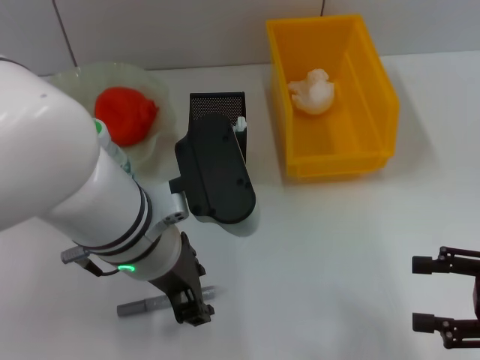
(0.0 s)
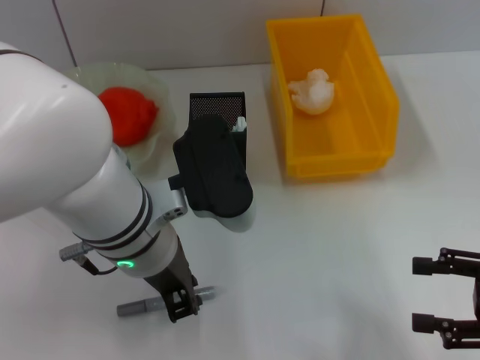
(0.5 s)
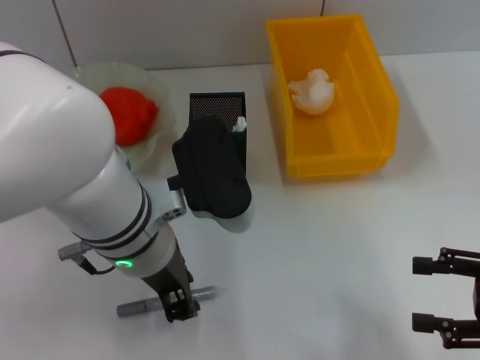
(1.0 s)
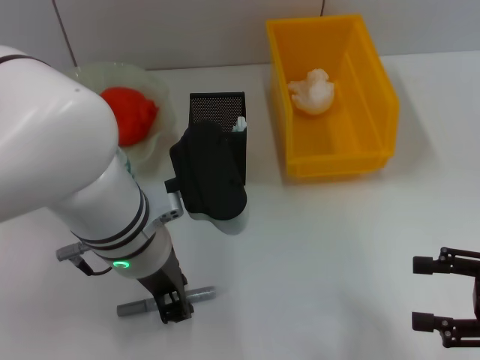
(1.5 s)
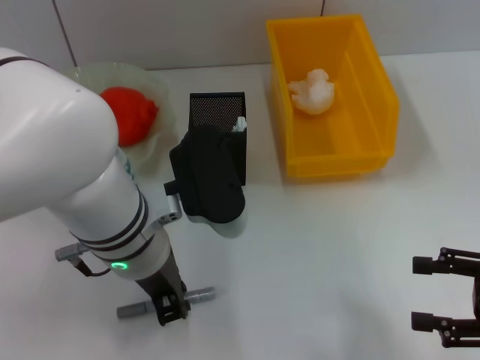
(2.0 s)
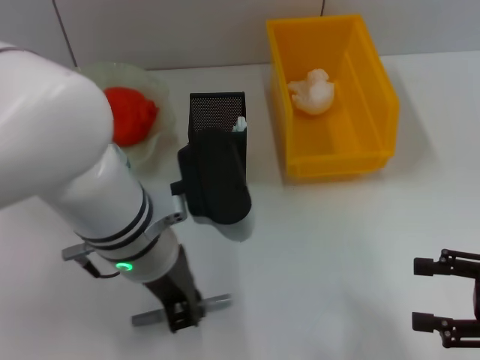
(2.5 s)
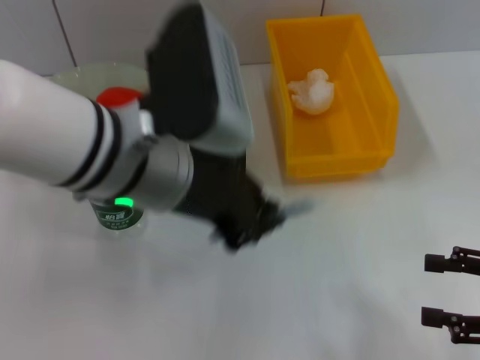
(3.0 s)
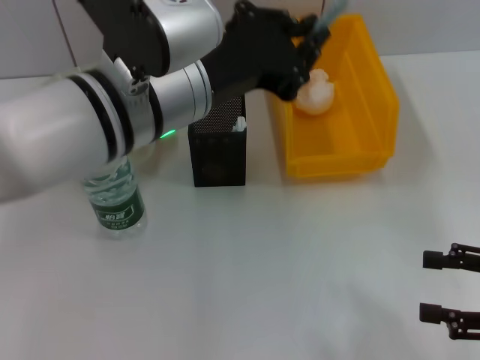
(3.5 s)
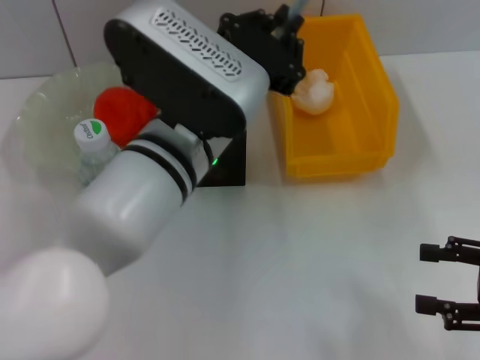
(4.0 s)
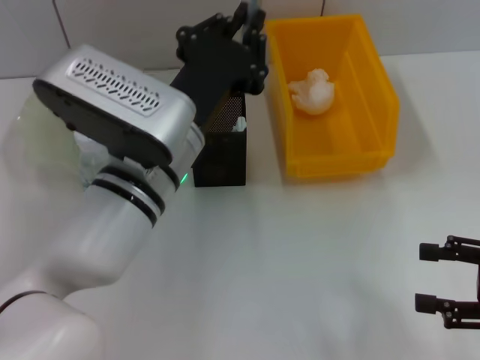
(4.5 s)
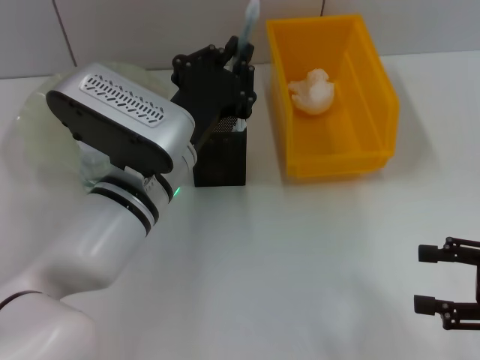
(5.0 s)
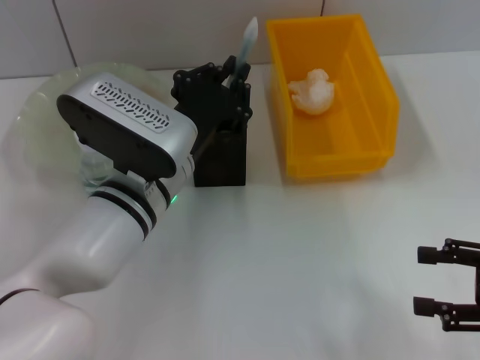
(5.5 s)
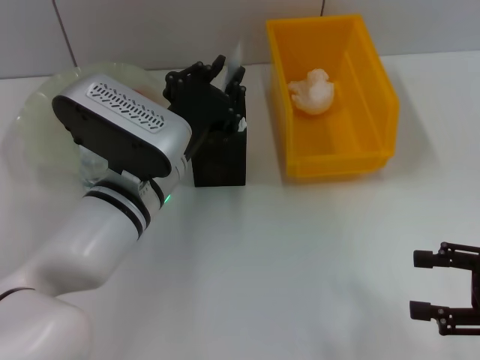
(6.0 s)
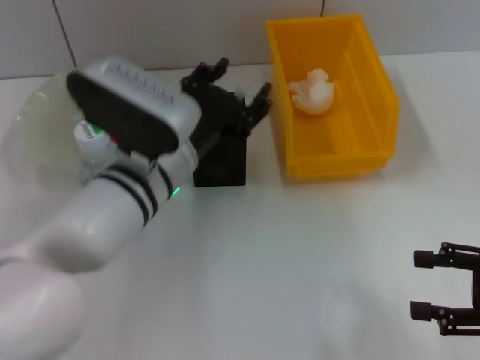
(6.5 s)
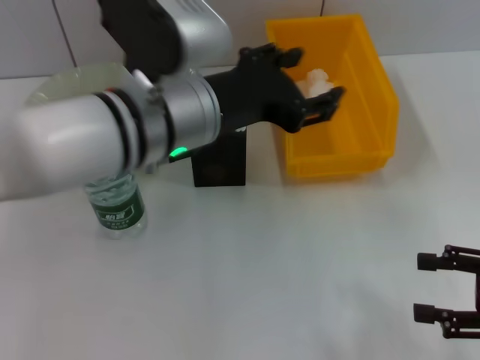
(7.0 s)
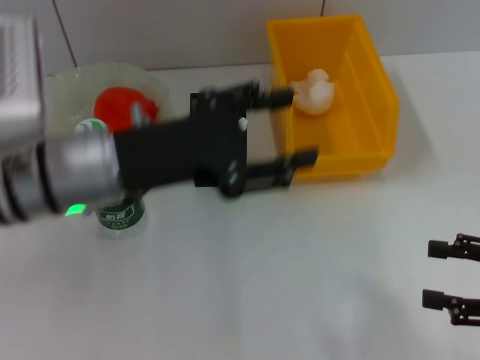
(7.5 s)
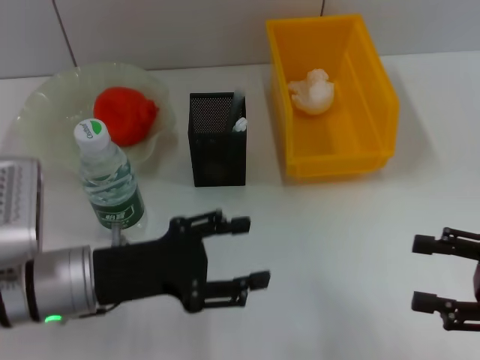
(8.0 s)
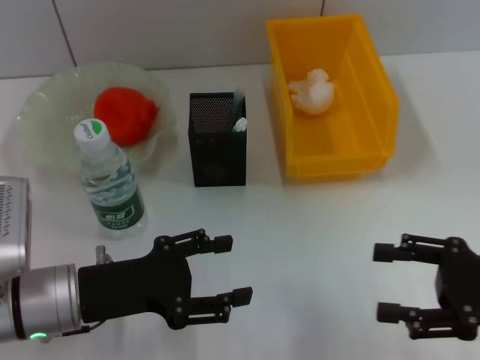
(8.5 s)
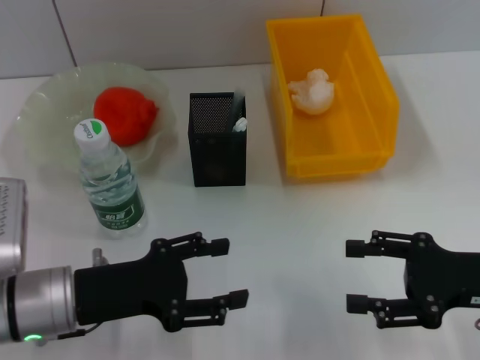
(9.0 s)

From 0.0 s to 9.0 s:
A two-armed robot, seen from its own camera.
Step, from 0.0 s to 2.0 s: Grab the gray glue with the left hand.
Step, from 2.5 s to 6.5 s: Place the gray glue into the pen holder with the left hand.
From 0.0 s to 2.0 s: The left gripper closes.
From 2.0 s to 4.5 s: The left gripper goes upward and returns, about 10 cm each way.
From 4.5 s to 7.0 s: The left gripper moves upward, roughly 5 cm, and opens up.
From 7.0 s to 9.0 s: The right gripper shifts about 5 cm to the left, while the left gripper goes some 20 cm to the left, downward and backward.

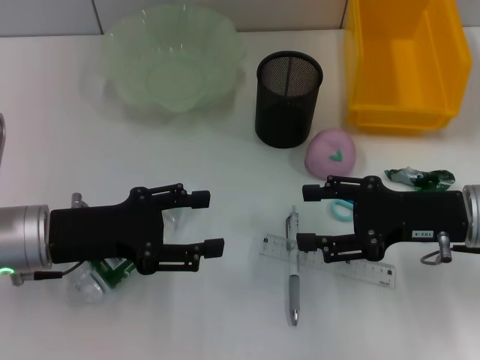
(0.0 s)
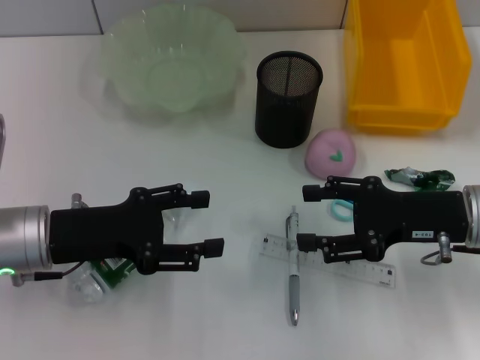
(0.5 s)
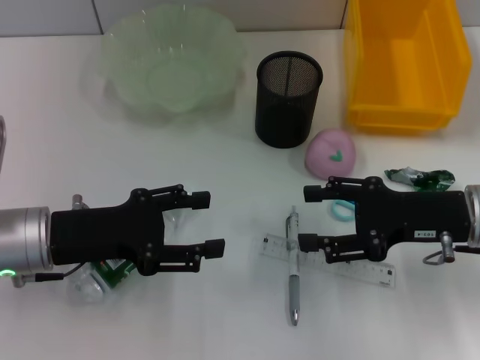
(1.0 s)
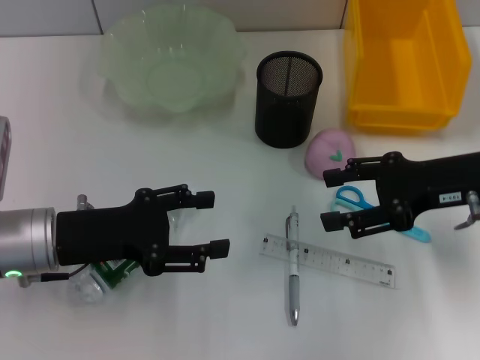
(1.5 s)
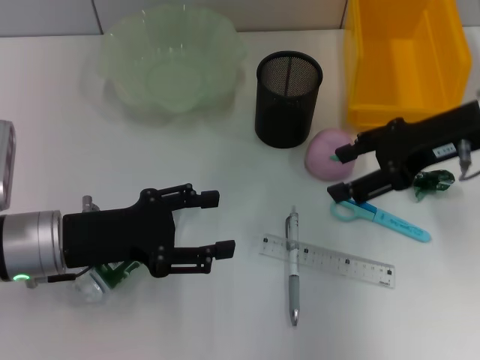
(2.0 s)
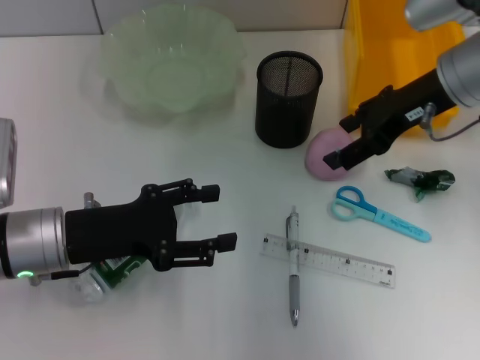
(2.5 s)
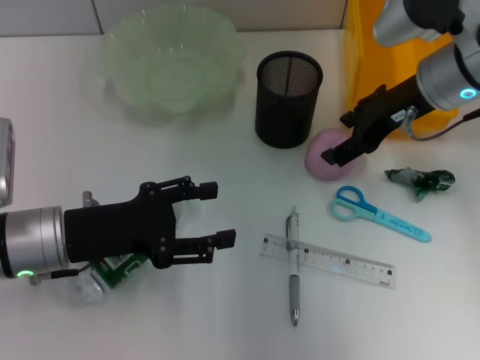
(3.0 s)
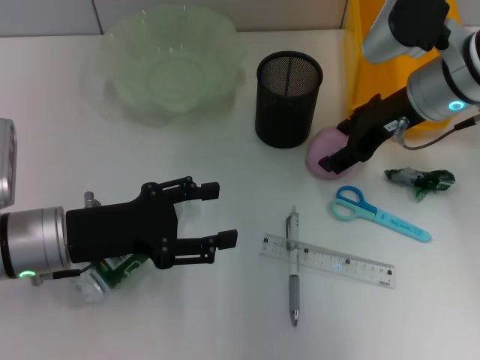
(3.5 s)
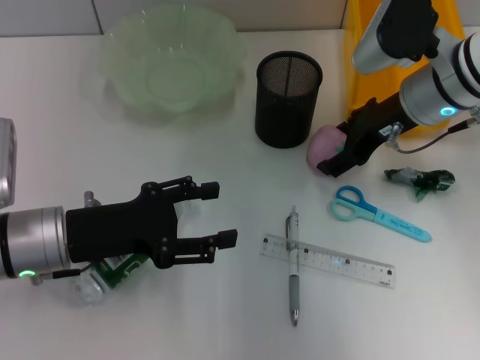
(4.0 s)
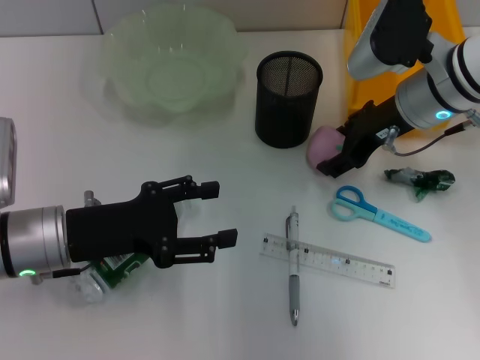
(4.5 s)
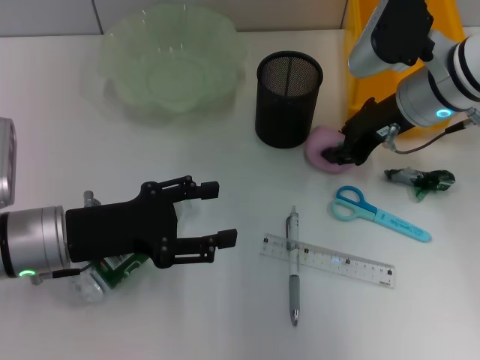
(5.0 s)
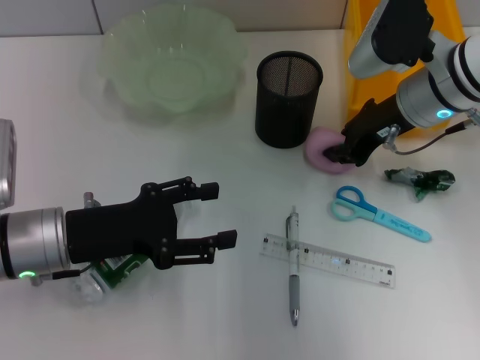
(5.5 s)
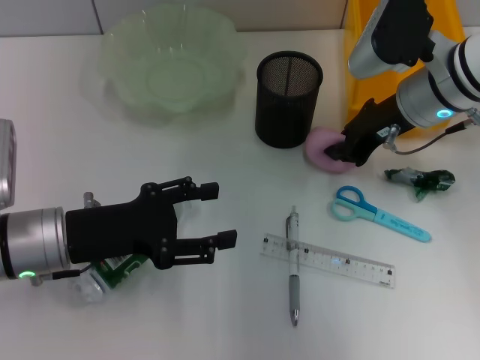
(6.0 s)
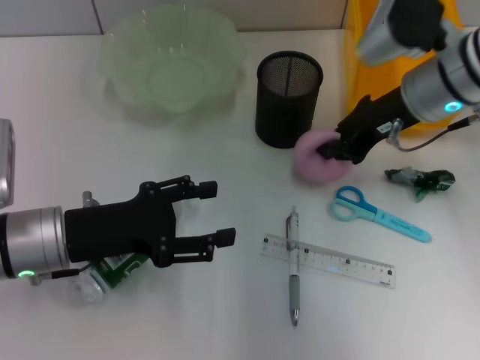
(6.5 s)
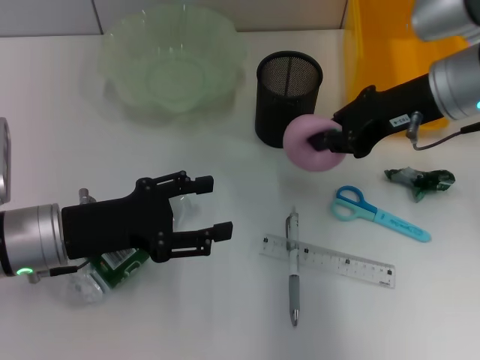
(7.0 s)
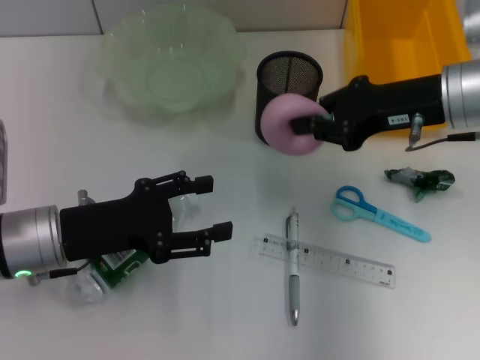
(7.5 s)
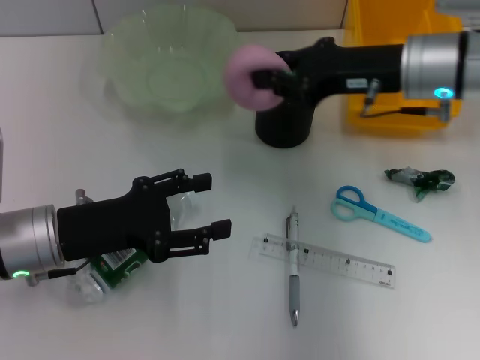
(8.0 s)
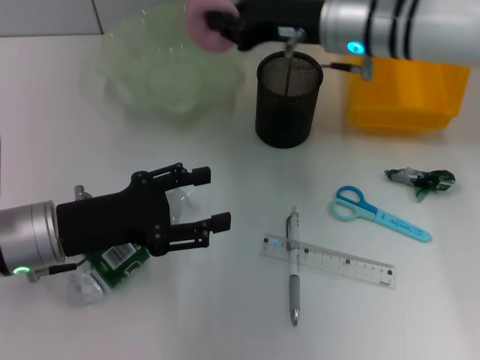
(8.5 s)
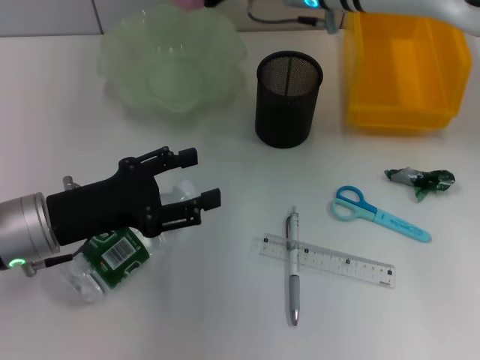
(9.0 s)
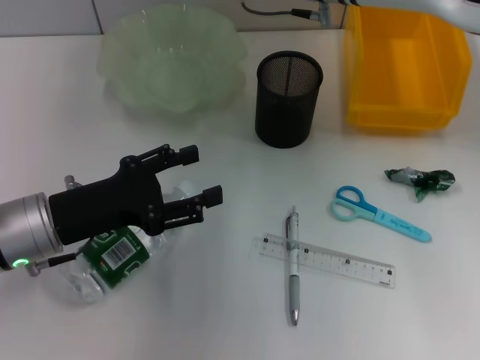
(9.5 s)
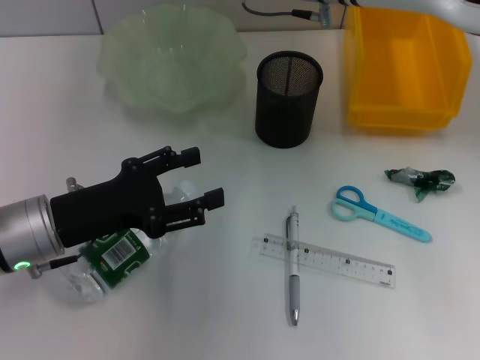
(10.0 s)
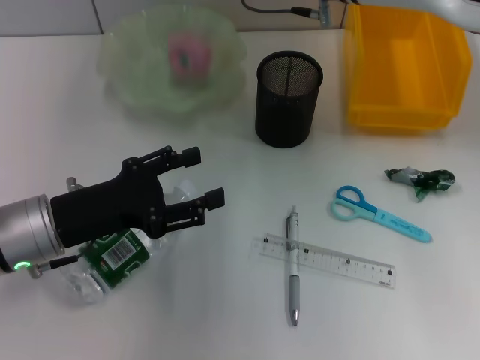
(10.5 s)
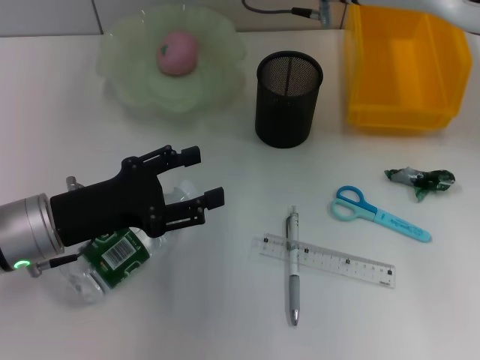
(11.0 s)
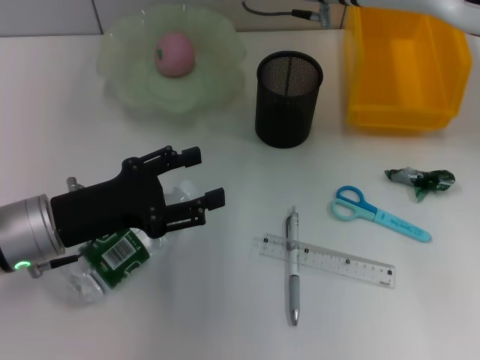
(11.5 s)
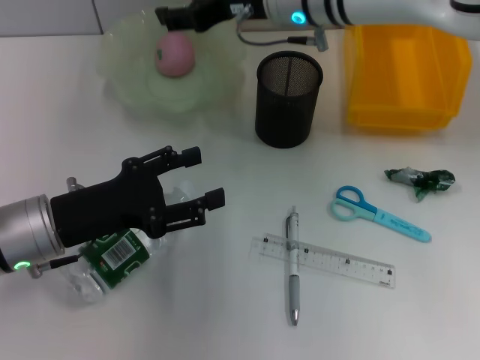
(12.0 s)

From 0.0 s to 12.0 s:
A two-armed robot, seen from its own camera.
Step, from 0.0 s to 5.5 s: Grab the peach with the right hand.
From 0.0 s to 2.0 s: The right gripper moves upward and forward, about 10 cm.
From 2.0 s to 4.0 s: The right gripper shifts approximately 5 cm to the left.
From 4.0 s to 6.0 s: The right gripper closes.
From 8.0 s to 10.0 s: The right gripper goes approximately 15 cm to the left and forward.
From 10.0 s to 12.0 s: The right gripper opens up.

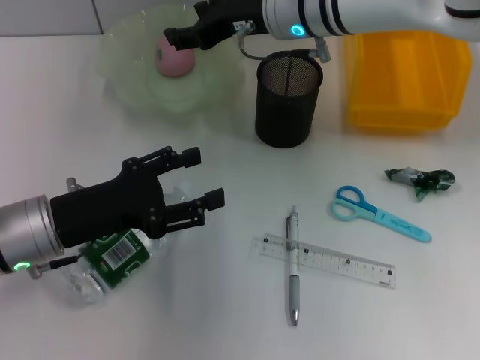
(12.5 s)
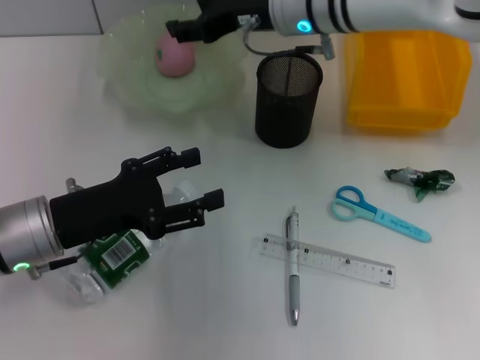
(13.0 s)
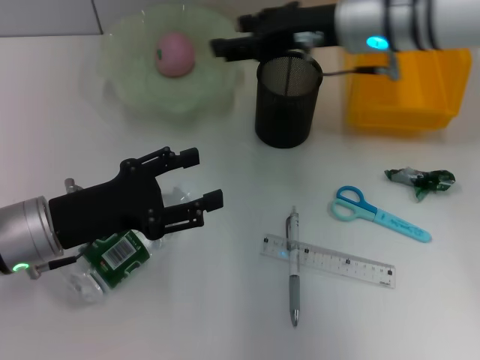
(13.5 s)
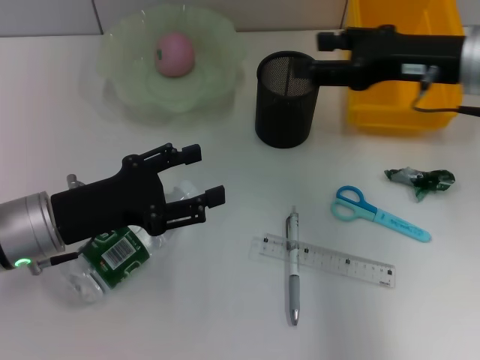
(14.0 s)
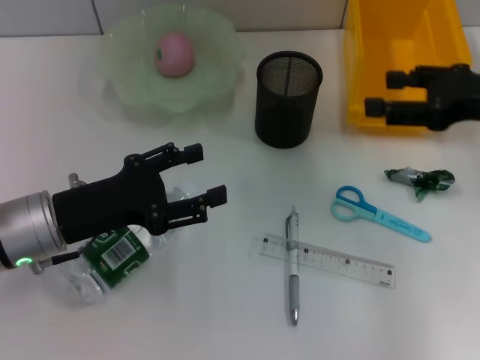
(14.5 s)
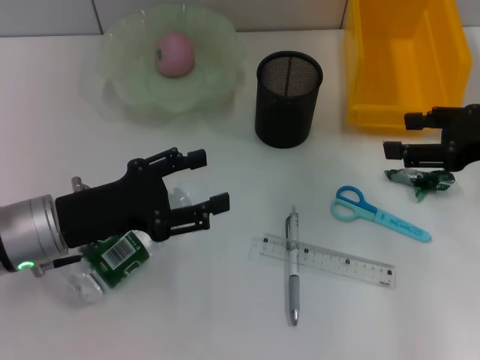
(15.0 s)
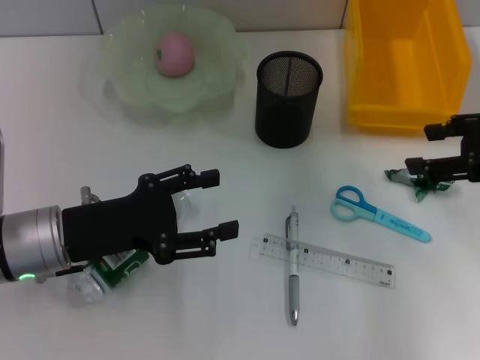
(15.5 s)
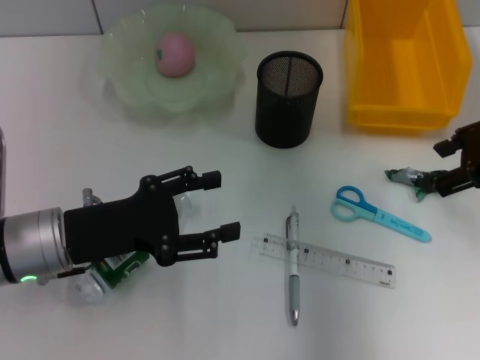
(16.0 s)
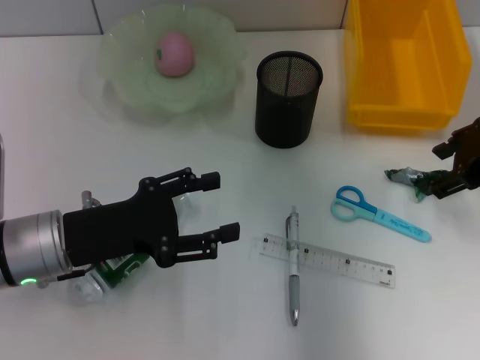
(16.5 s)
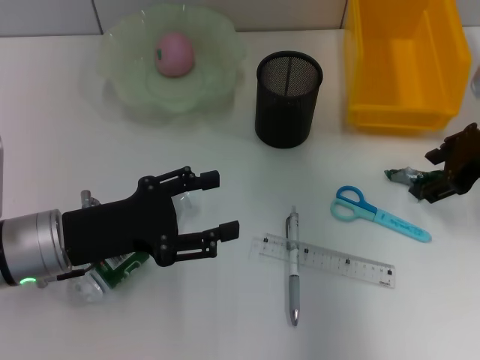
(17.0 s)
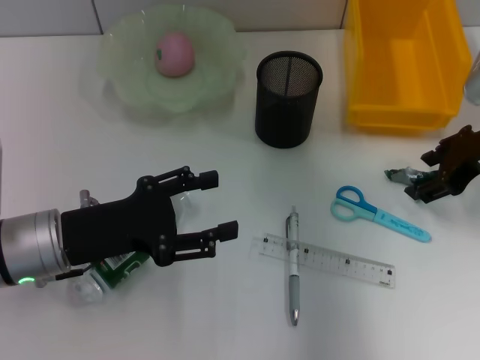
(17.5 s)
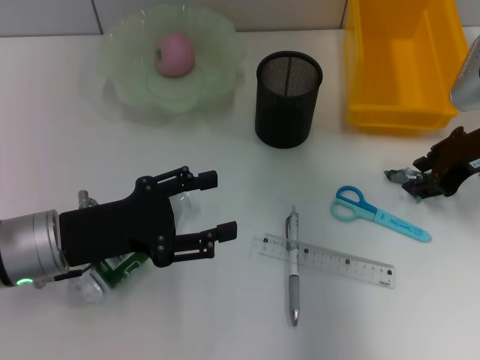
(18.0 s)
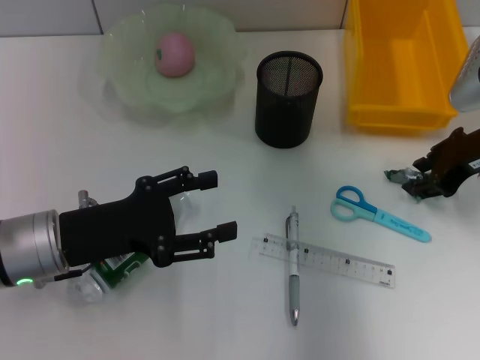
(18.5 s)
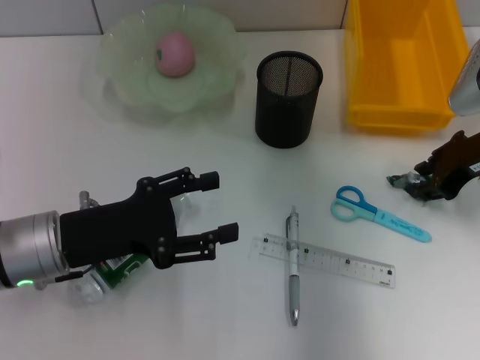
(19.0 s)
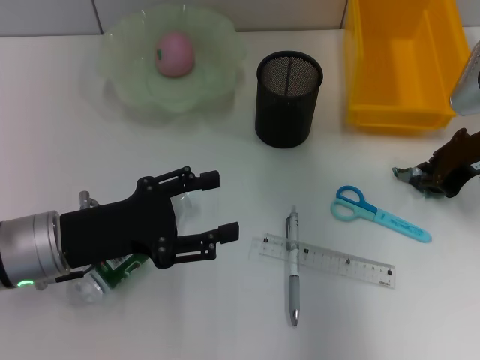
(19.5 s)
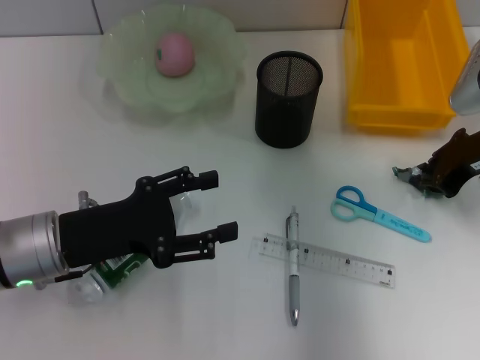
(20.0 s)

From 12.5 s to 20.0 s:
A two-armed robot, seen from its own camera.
Step, from 13.0 s to 19.5 s: Grab the plastic with the right hand.
From 12.5 s to 14.5 s: The right gripper goes roughly 25 cm to the right and backward.
From 16.5 s to 18.0 s: The grippers make only small movements.
From 18.0 s to 20.0 s: The right gripper closes its fingers.
